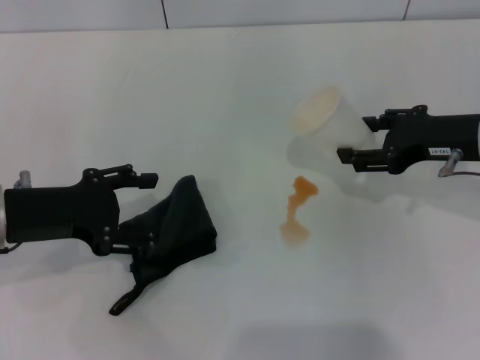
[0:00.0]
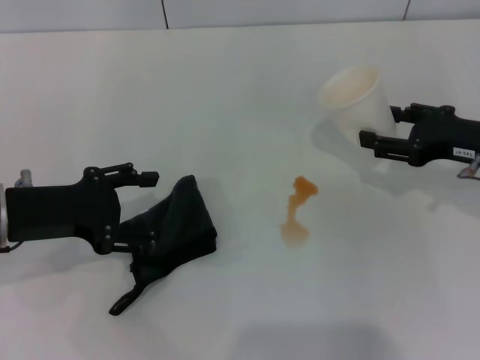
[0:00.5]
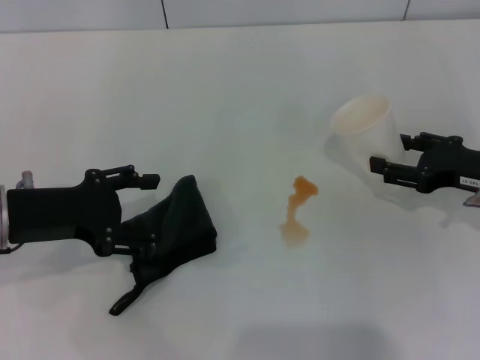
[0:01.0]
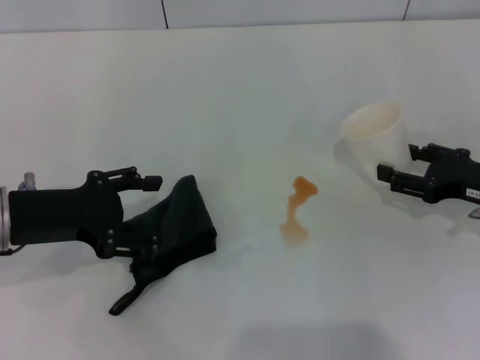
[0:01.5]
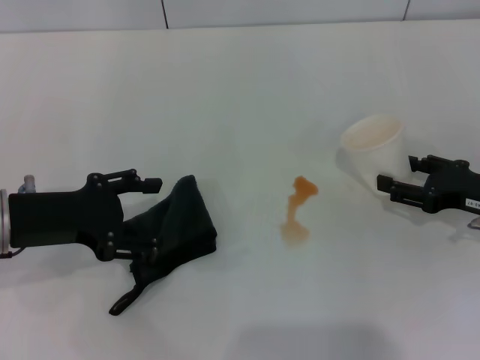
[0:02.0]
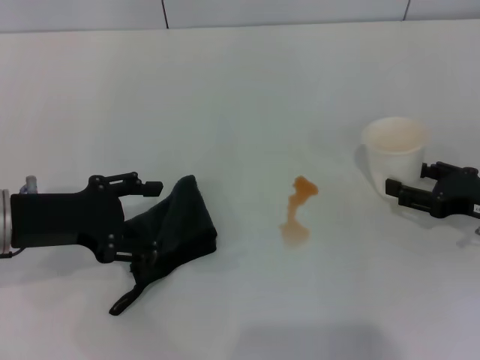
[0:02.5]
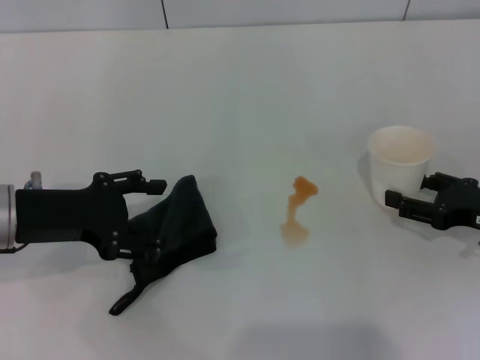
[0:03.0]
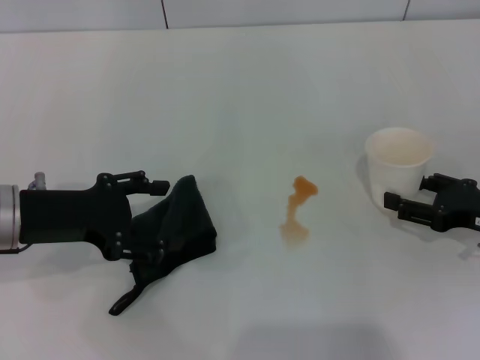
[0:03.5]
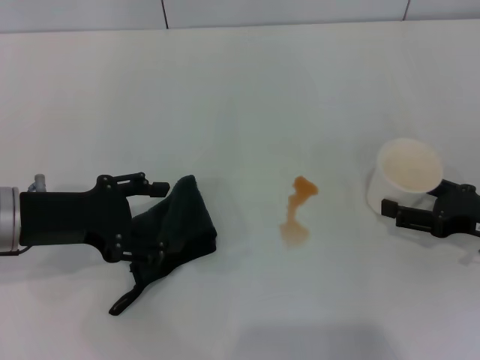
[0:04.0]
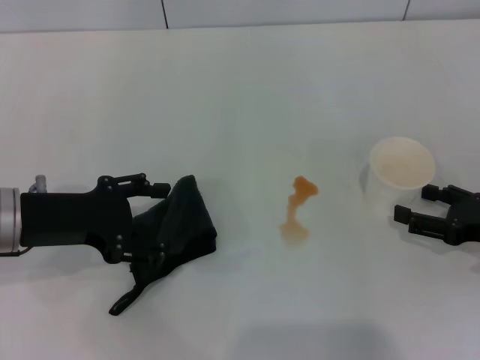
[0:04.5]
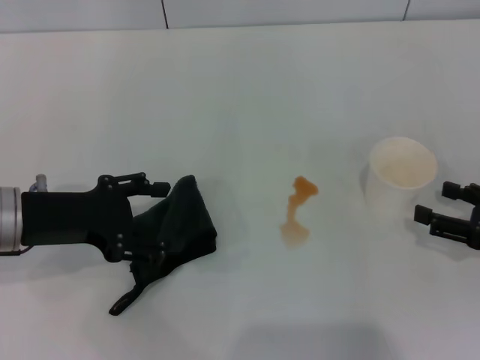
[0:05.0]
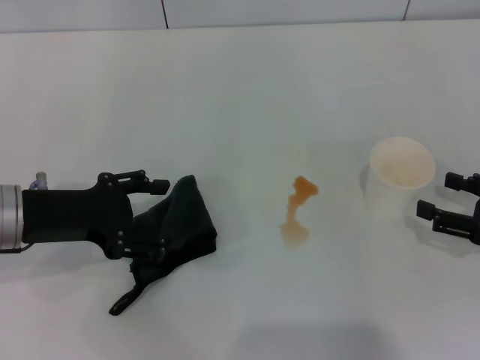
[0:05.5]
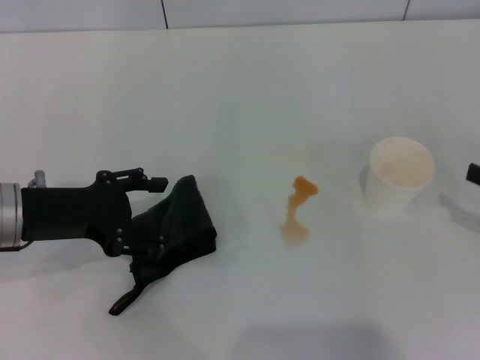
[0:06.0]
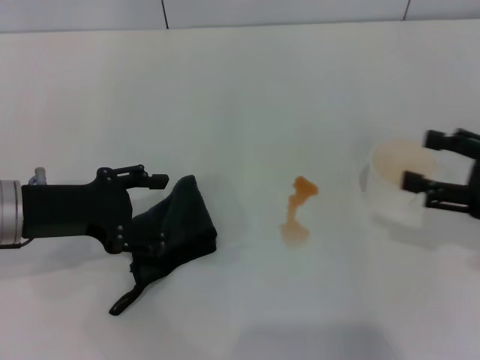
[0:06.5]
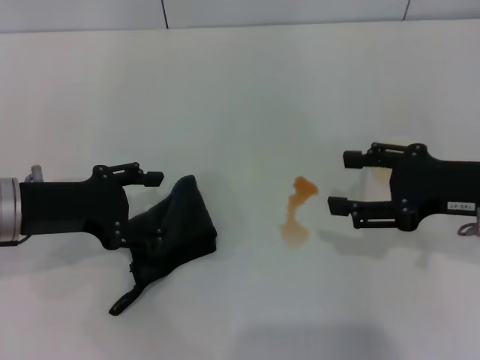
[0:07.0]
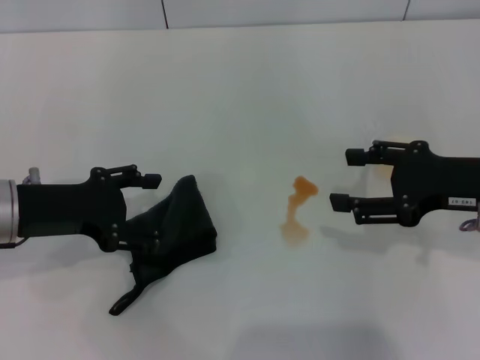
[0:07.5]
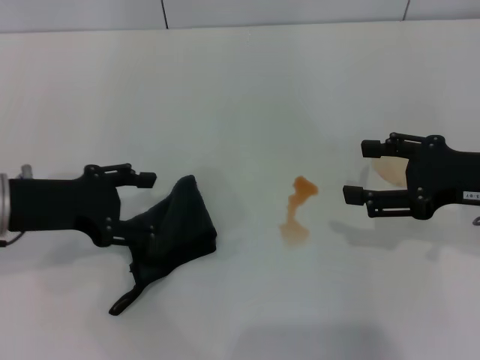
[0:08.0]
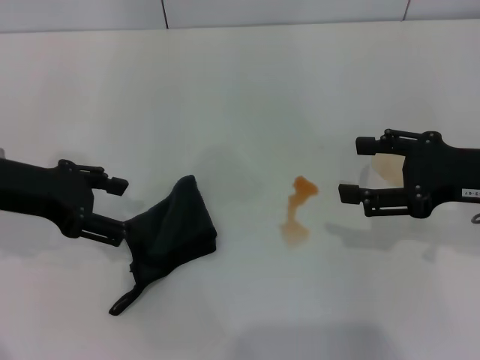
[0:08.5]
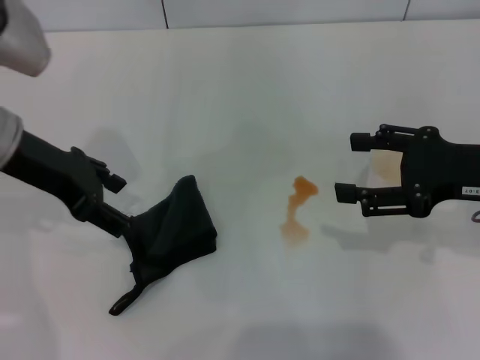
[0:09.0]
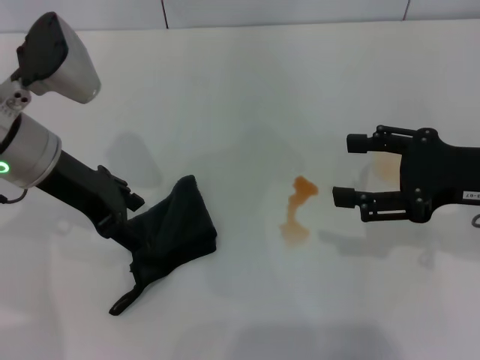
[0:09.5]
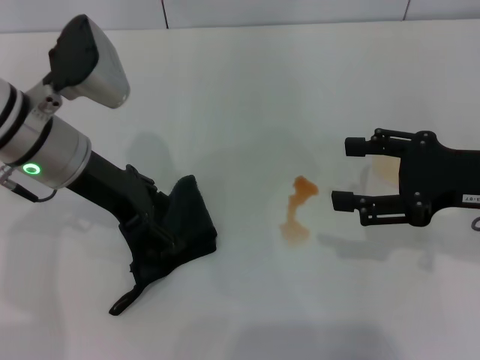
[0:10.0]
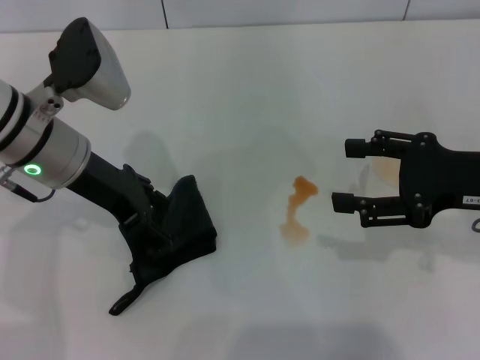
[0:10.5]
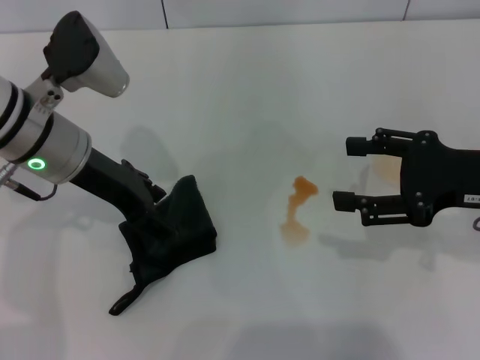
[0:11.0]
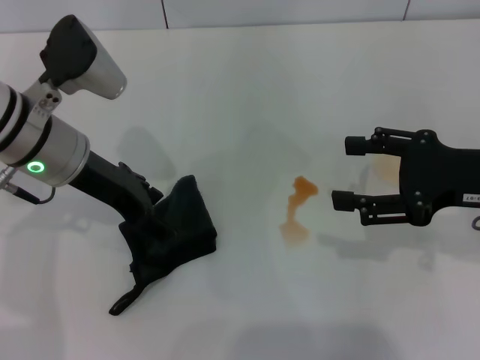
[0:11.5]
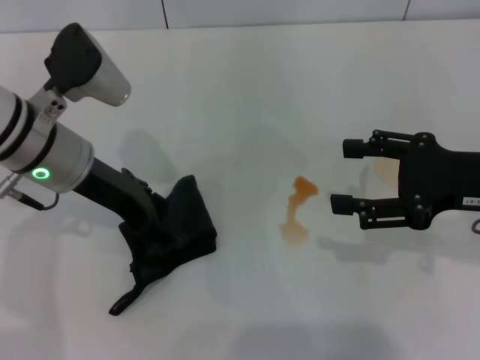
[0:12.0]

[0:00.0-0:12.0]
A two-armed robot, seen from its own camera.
Step, 0:00.0 to 0:04.5: Stand the paper cup upright with the right gripper.
0:00.0 to 0:02.0: The right gripper shifts about 10 cm downward and to the right.
0:02.0 to 0:04.0: The right gripper opens.
0:04.0 to 0:06.0: The right gripper moves to the right, approximately 5 cm.
0:06.0 to 0:08.0: The right gripper heads to the left, covering approximately 10 cm, and closes and opens again.
0:08.0 to 0:10.0: The left gripper shifts roughly 10 cm to the right and forward.
0:10.0 to 0:12.0: There are only small adjustments of the grippers.

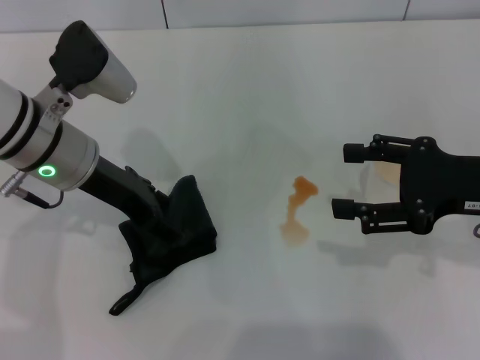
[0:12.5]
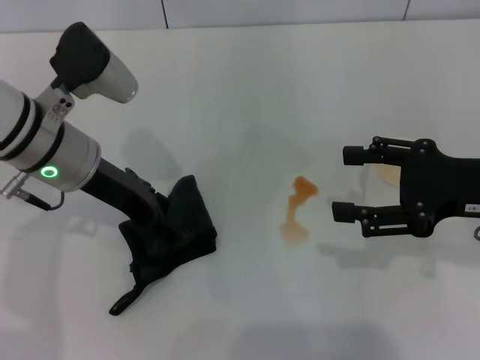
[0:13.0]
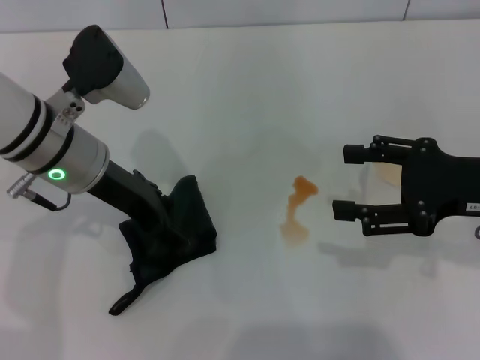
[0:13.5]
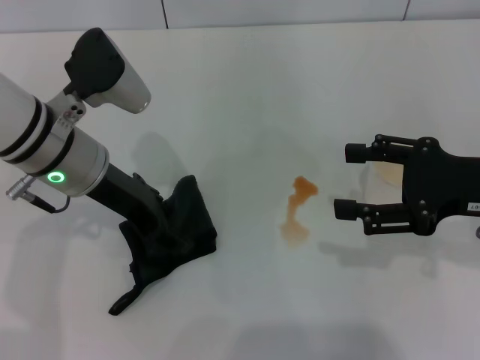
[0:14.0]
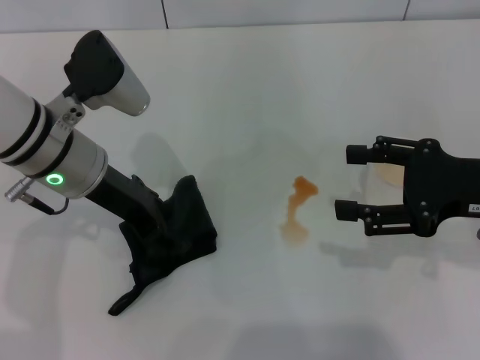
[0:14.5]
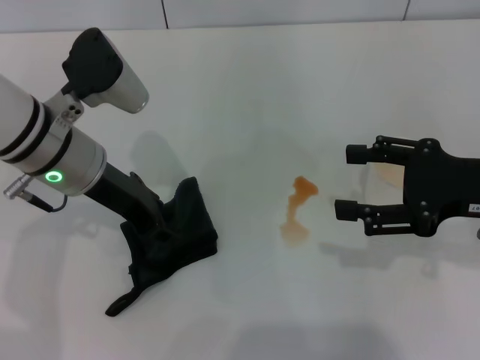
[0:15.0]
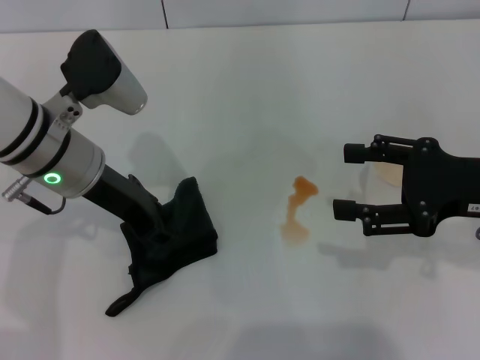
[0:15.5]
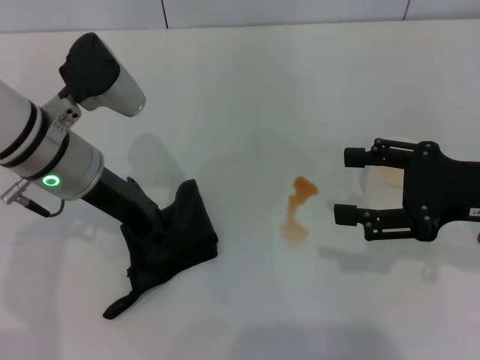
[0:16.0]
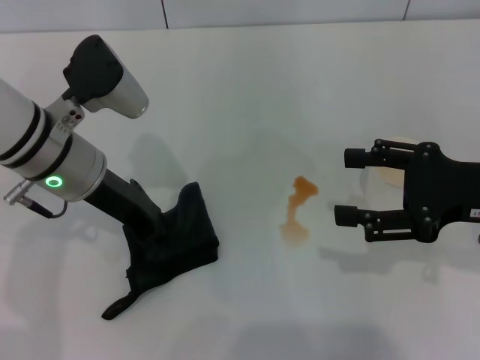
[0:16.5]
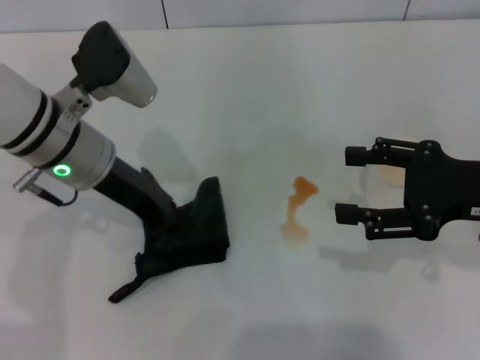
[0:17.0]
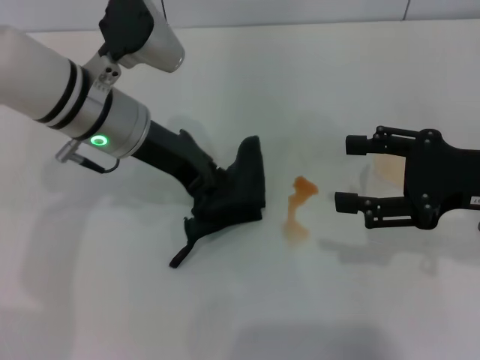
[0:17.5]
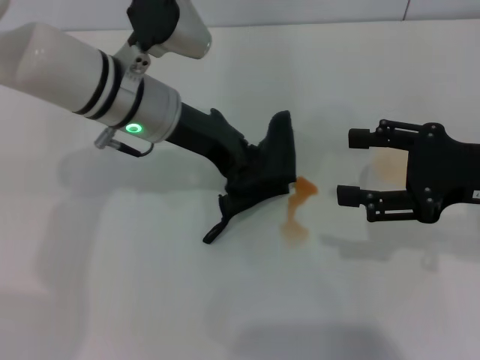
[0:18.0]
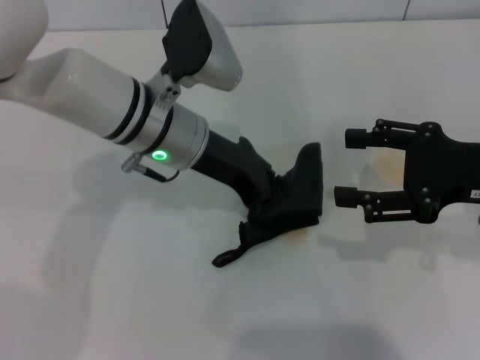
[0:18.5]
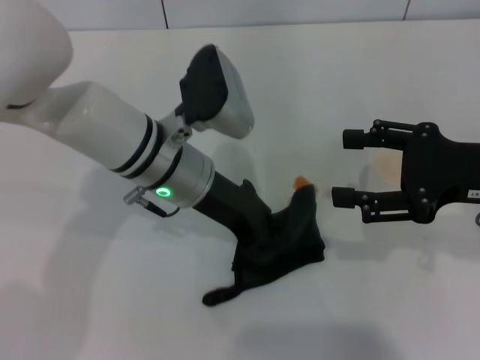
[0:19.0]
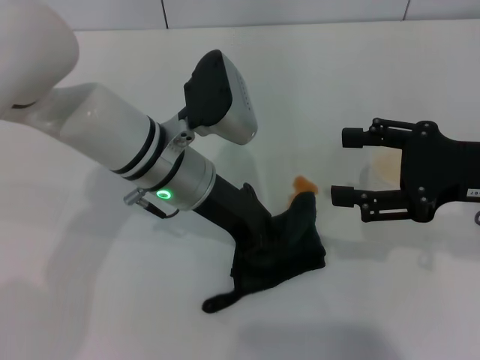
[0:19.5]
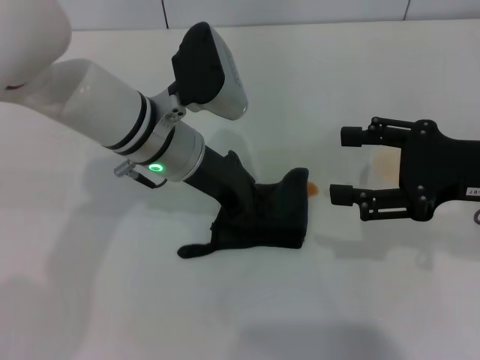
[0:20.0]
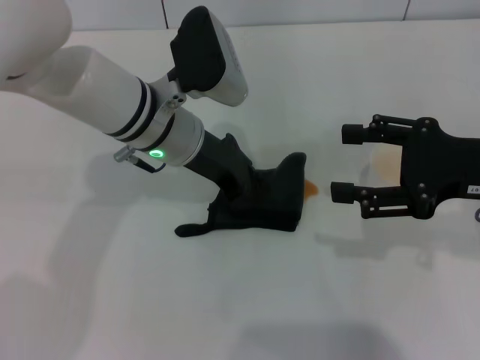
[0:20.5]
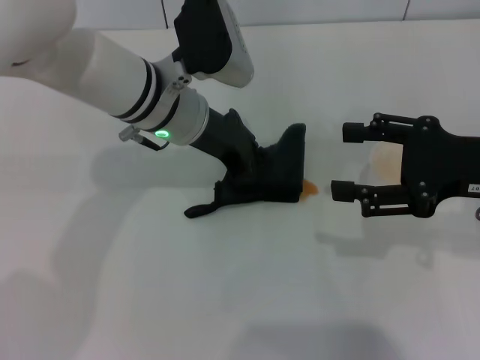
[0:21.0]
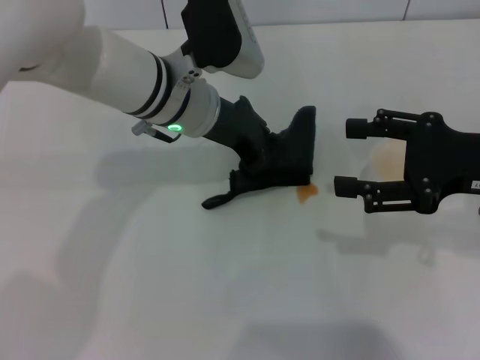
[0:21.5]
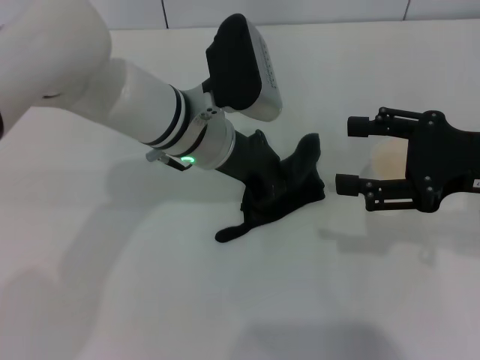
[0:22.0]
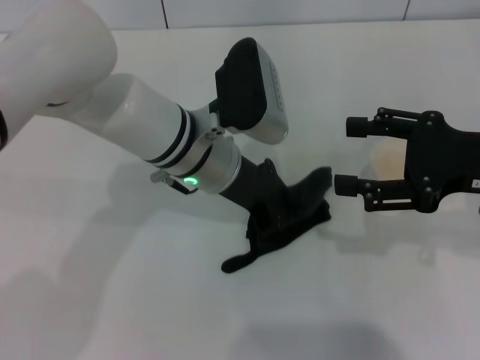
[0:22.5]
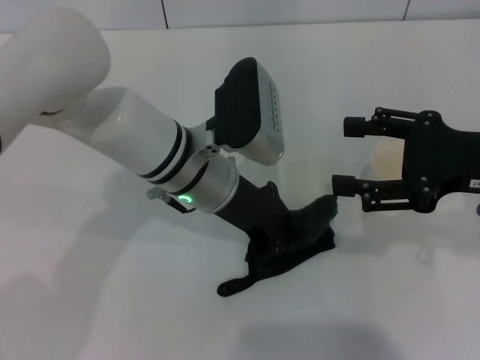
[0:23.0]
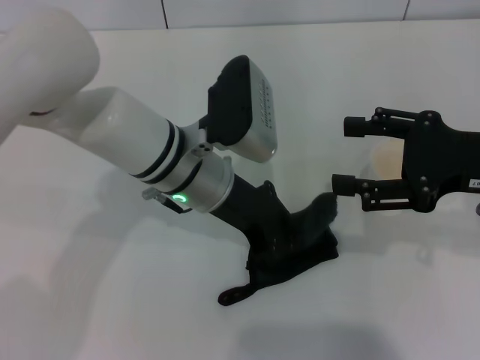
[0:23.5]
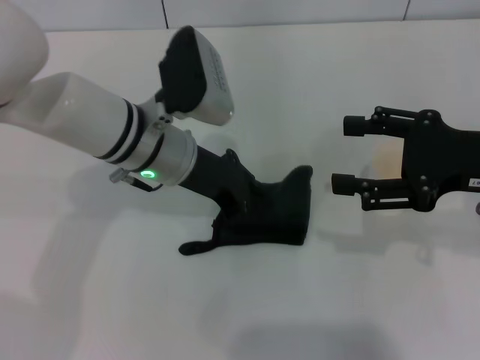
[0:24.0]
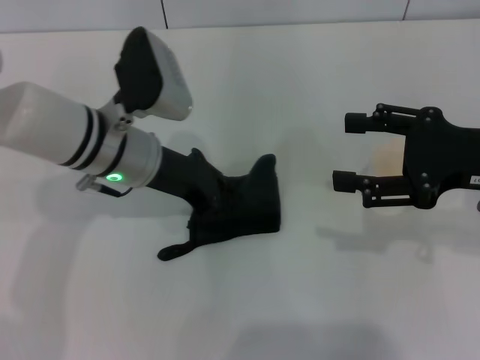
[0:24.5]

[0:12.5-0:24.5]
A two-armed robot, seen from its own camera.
Step, 0:12.5 to 0:16.5: Grasp the rag with the left gripper.
0:12.5 to 0:14.5: Both grippers stay about where they are.
0:14.5 to 0:16.5: The left gripper closes up.
0:16.5 to 0:18.5: The left gripper heads to the right, covering about 10 cm.
0:18.5 to 0:20.5: The grippers stay close to where they were, moving slightly.
0:22.5 to 0:24.5: The left gripper moves to the left, roughly 10 cm.

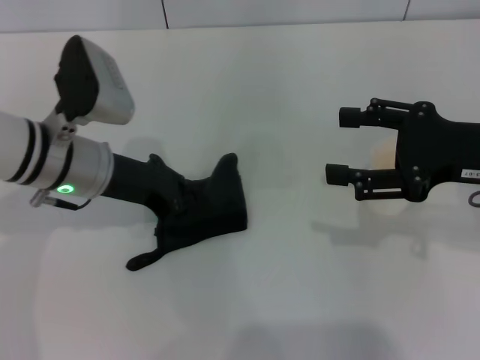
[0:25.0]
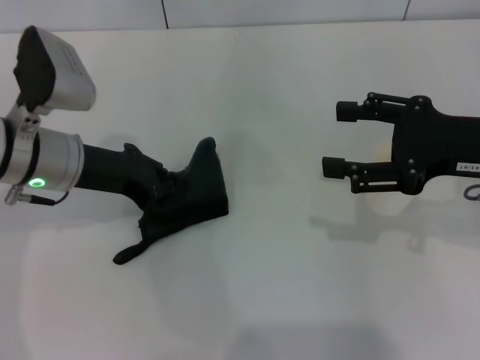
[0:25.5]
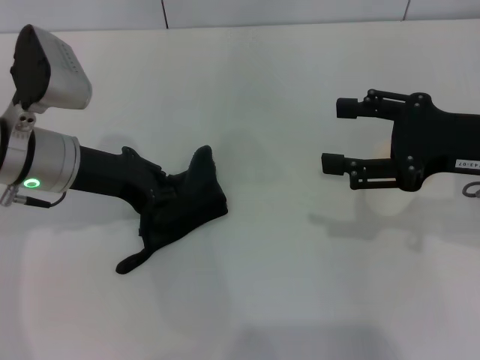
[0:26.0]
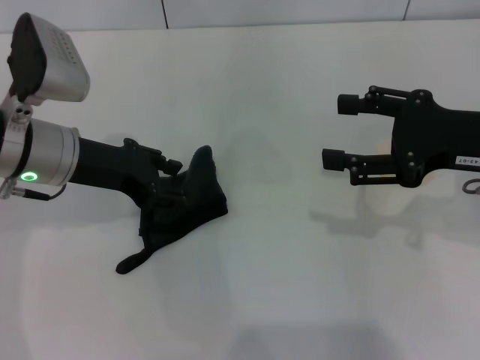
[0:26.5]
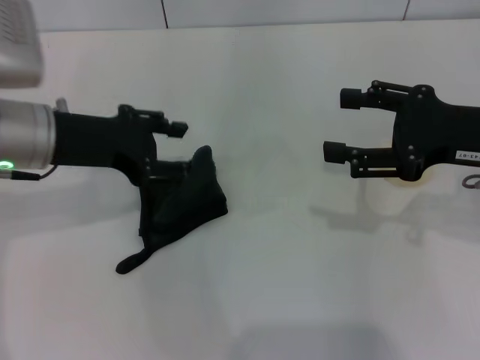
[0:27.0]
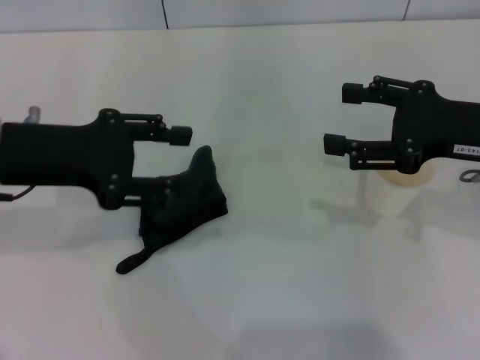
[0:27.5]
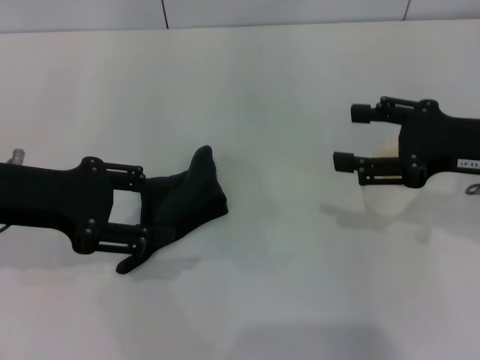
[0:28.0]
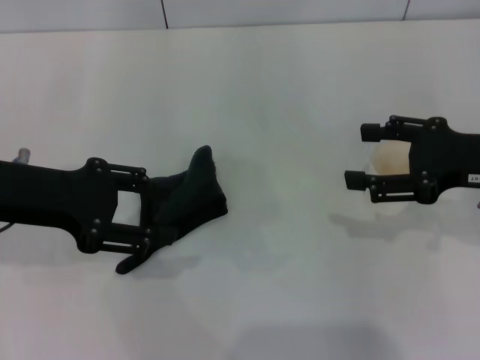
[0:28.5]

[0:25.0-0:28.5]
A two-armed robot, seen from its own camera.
Step, 0:26.0 to 0:26.5: Place the rag on the table with the left gripper.
0:25.0 to 0:27.0: The left gripper moves upward, approximately 5 cm, and opens.
0:27.0 to 0:28.5: The left gripper shifts by some 5 cm.
